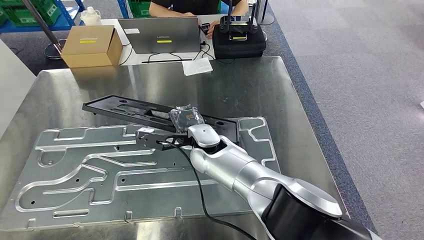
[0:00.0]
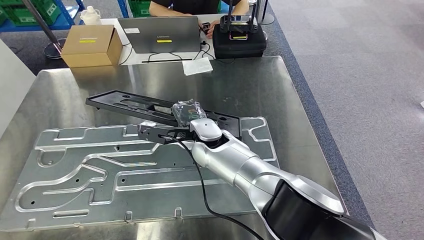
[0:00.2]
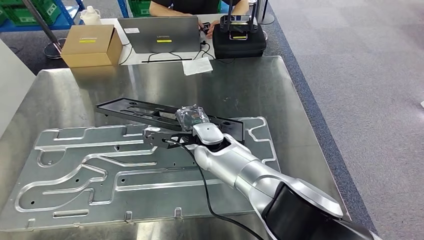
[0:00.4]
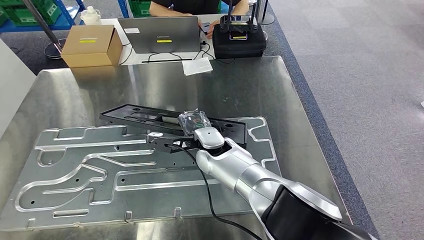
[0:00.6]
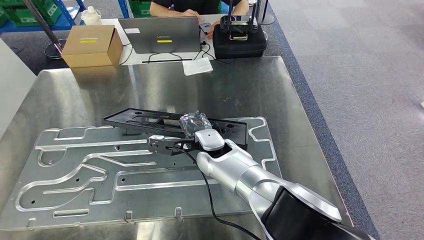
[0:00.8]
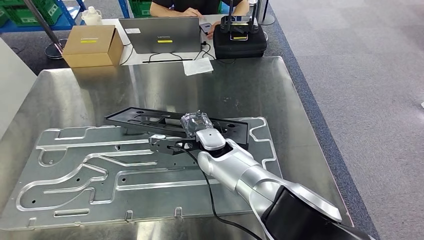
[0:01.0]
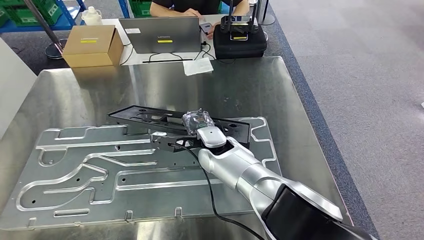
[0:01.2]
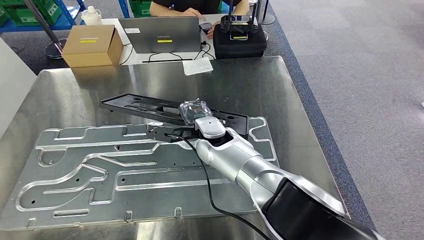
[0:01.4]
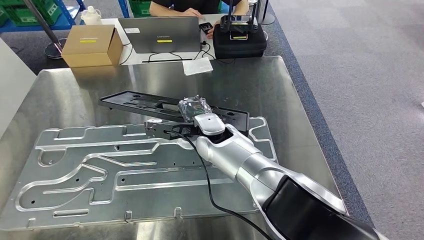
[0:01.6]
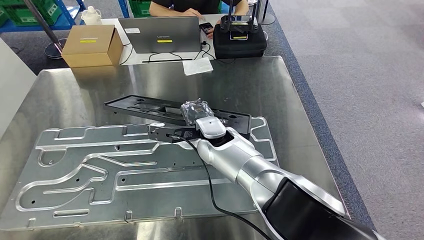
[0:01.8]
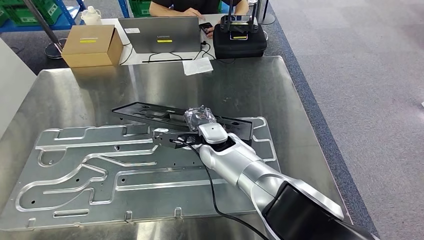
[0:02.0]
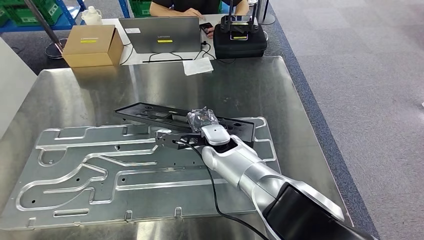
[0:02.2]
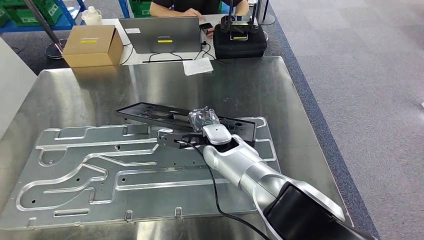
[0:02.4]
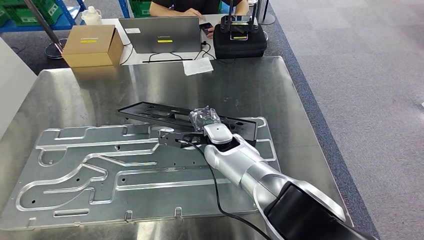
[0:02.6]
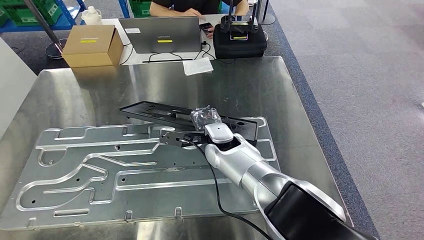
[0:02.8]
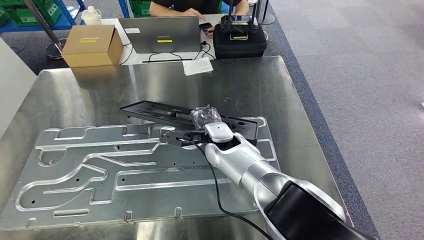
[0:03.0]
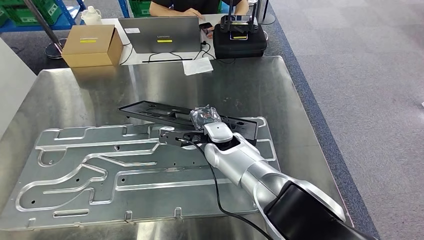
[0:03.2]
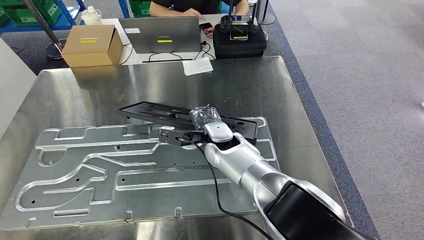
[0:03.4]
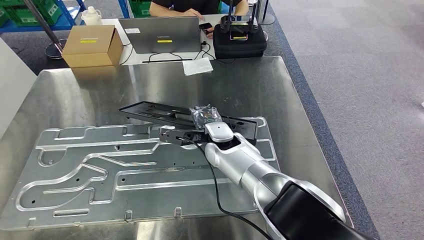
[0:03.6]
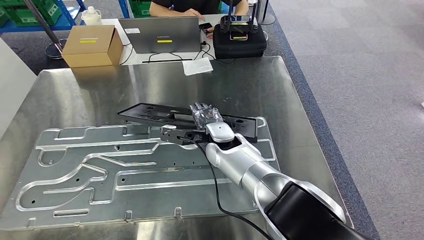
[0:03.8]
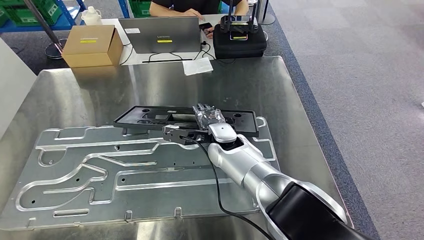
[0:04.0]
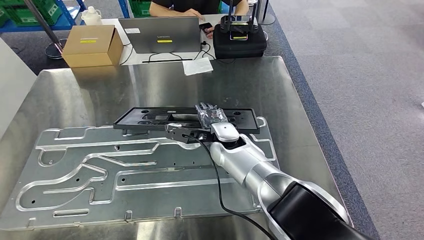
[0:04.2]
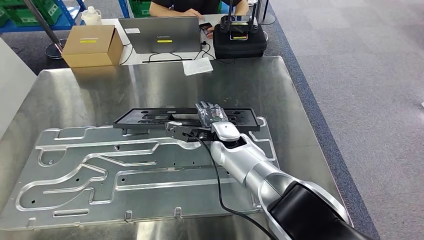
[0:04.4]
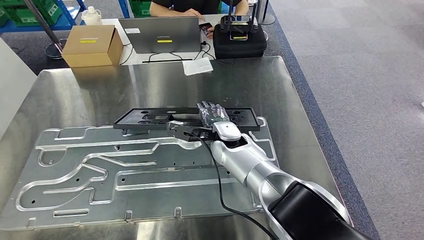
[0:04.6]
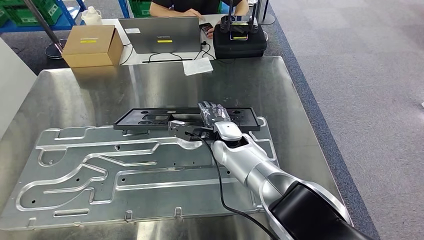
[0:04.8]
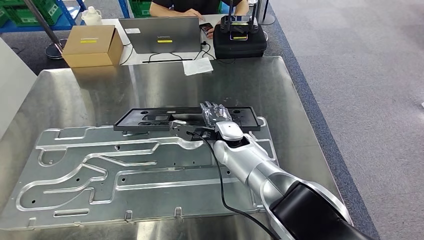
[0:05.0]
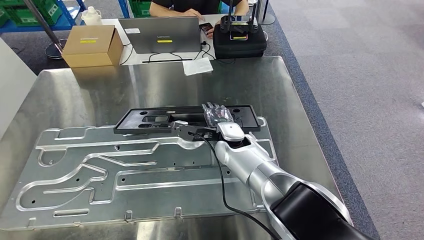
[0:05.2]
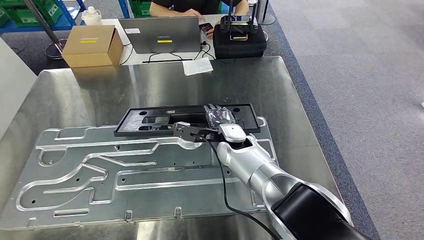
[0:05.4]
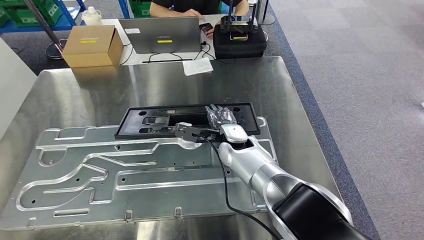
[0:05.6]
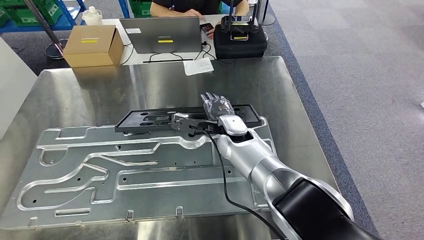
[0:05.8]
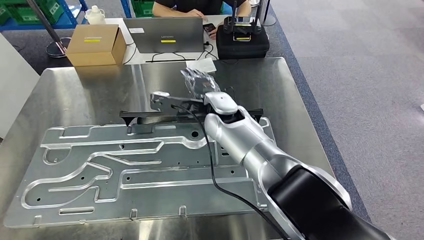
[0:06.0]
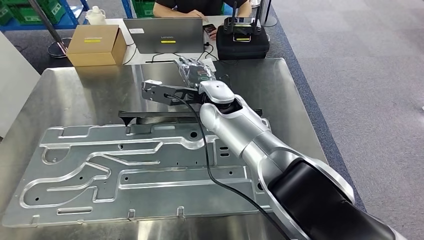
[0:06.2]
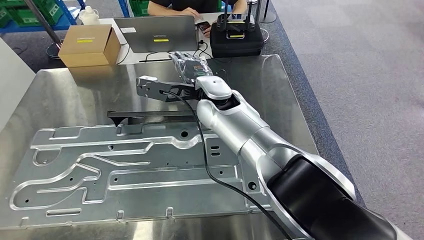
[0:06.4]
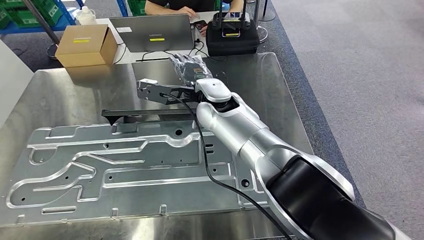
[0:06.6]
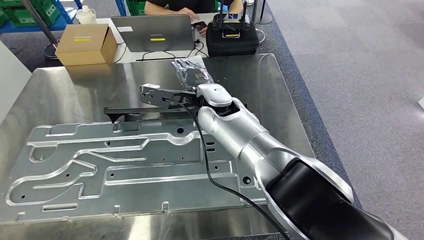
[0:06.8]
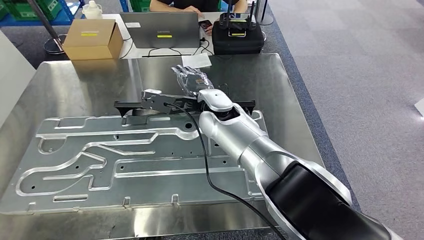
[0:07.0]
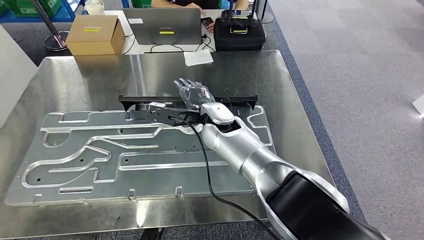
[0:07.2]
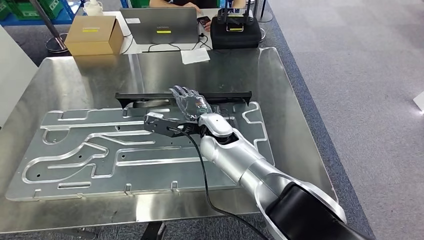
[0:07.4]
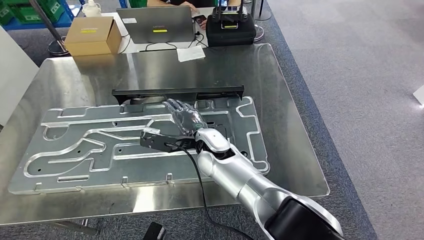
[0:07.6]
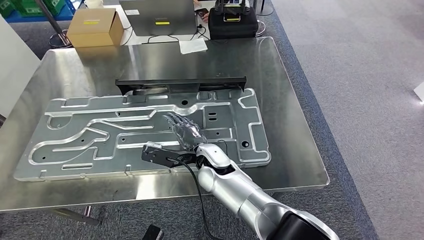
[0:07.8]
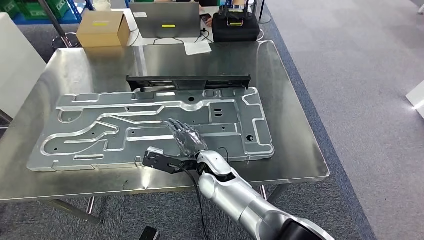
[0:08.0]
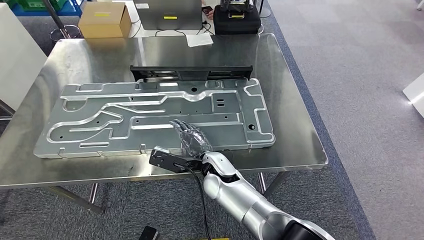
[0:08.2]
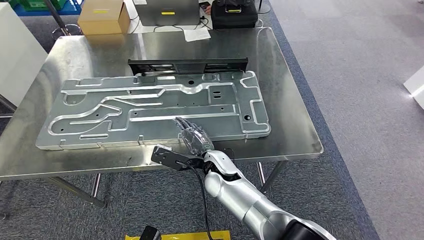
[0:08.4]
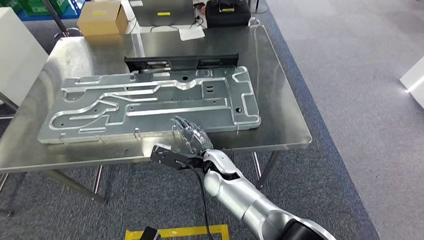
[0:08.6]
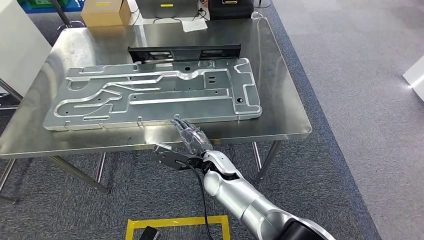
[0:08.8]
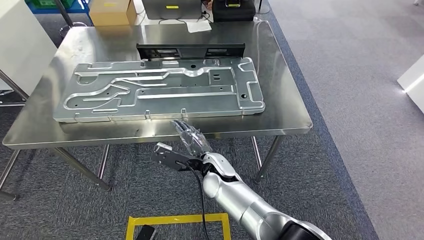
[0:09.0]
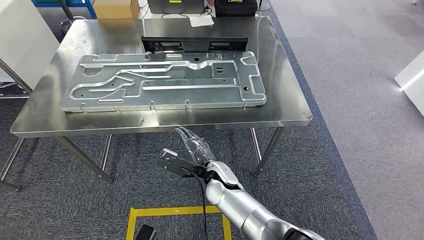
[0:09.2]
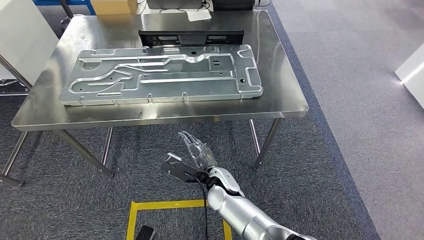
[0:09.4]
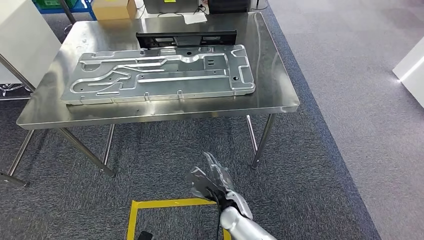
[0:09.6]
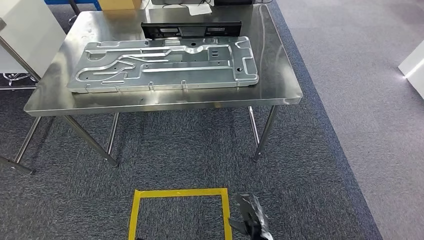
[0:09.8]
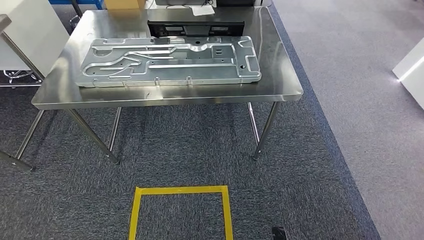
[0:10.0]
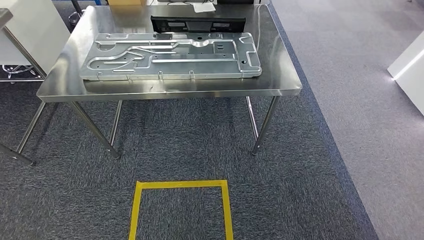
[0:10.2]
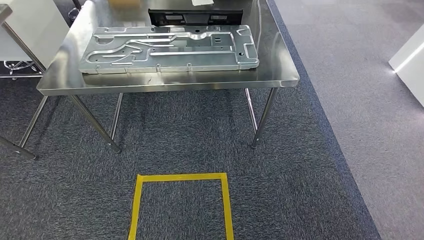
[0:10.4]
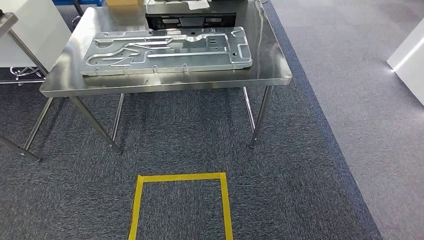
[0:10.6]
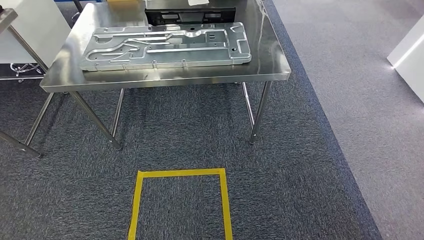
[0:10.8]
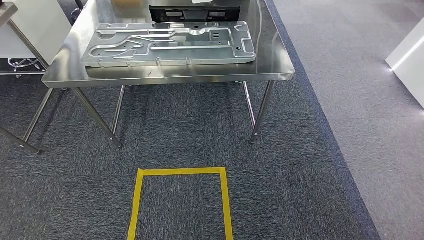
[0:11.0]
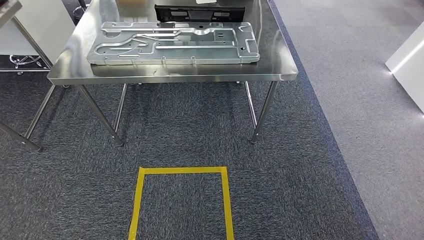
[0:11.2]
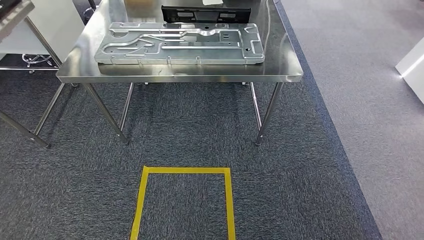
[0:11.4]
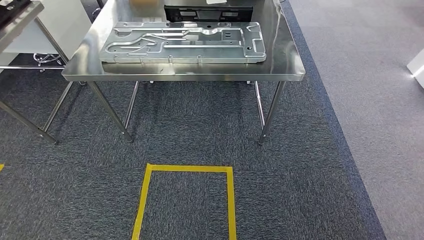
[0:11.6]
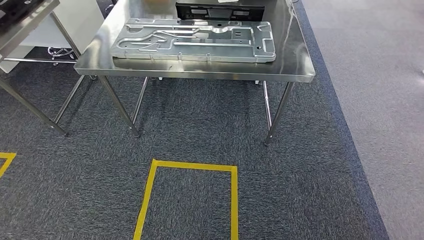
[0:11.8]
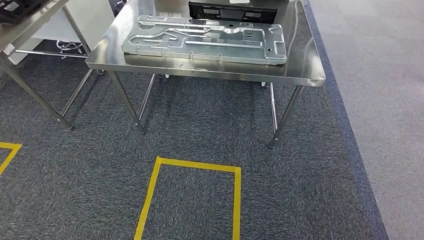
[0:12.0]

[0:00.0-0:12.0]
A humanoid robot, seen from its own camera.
Step, 0:00.0 to 0:06.8: Insert the large material into the corresponding hole on the workbench.
0:00.0 to 0:03.0: The hands make only small movements.
0:03.0 to 0:04.4: There are only small adjustments of the hands.

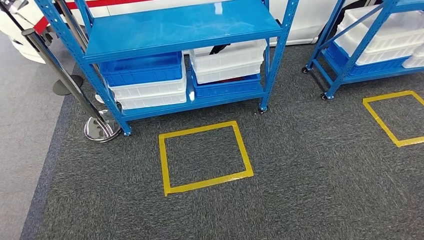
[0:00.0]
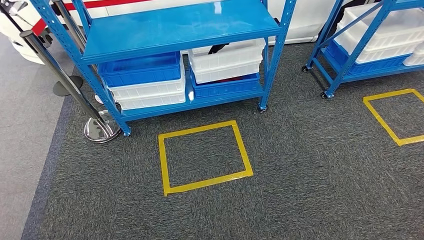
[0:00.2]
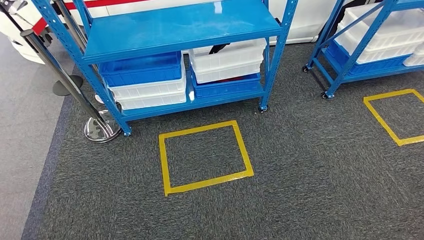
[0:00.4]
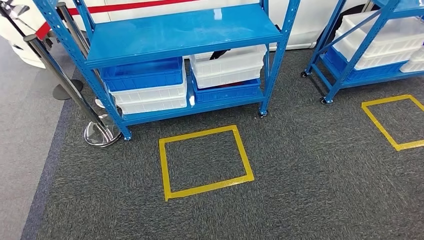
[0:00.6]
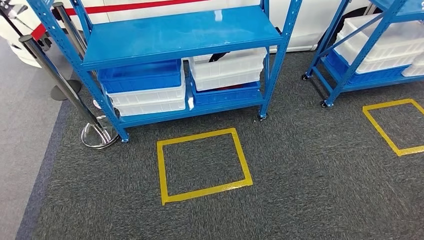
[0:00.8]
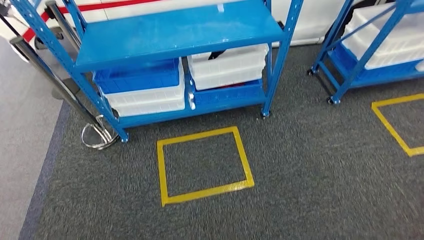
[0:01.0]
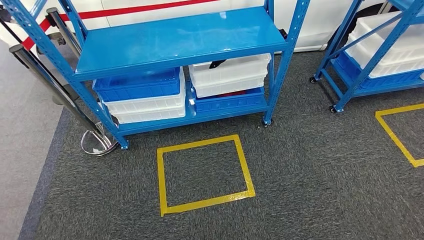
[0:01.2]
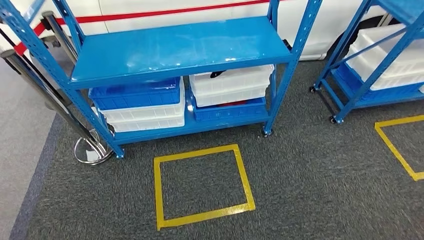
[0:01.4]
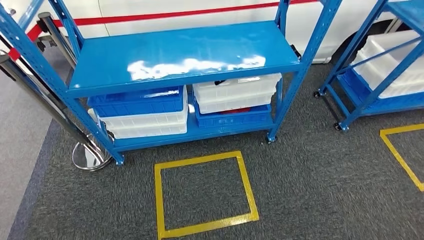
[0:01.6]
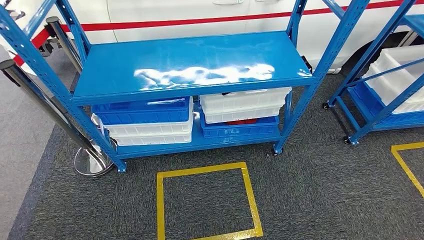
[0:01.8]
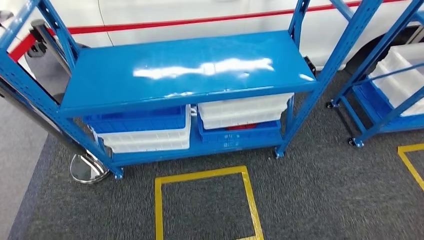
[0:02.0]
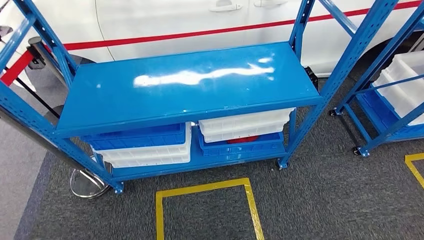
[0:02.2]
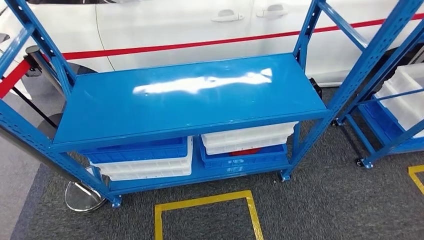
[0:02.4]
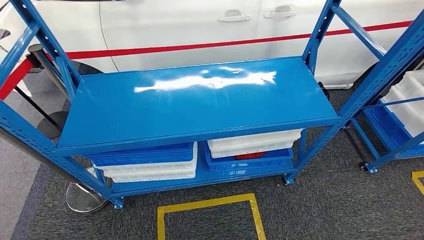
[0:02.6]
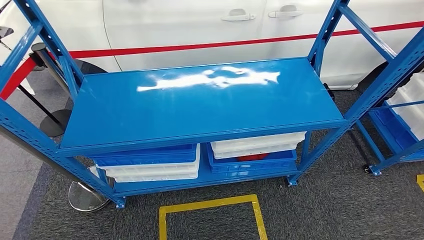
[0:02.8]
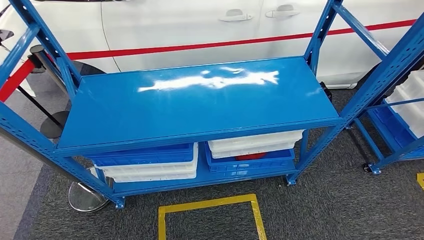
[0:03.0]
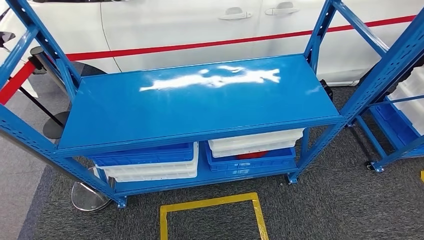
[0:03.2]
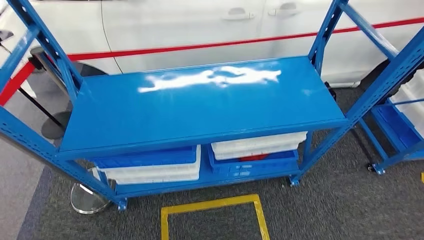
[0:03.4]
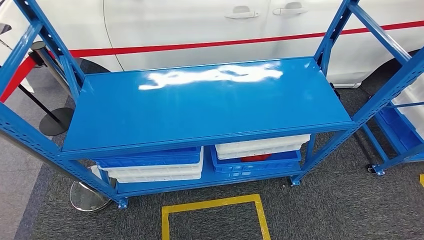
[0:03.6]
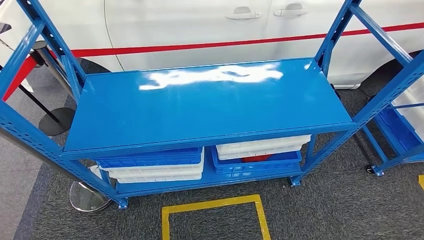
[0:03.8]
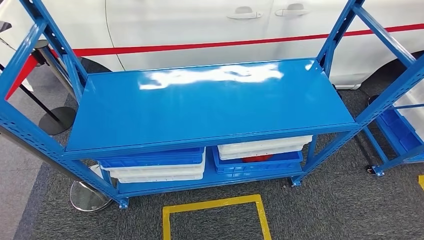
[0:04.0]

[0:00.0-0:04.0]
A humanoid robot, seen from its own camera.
Step, 0:00.0 to 0:04.0: Move to the initial position of the shelf.

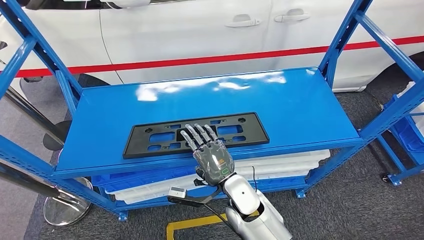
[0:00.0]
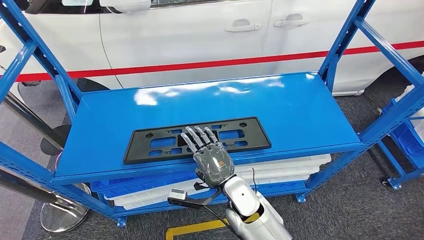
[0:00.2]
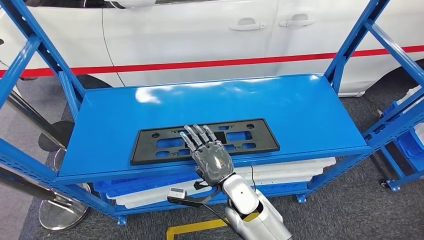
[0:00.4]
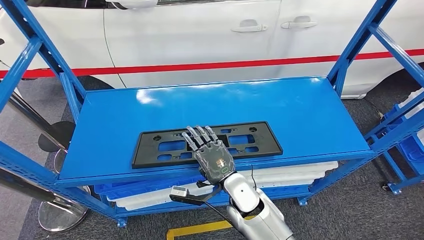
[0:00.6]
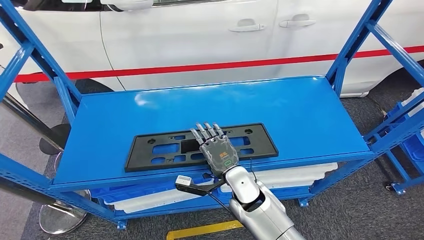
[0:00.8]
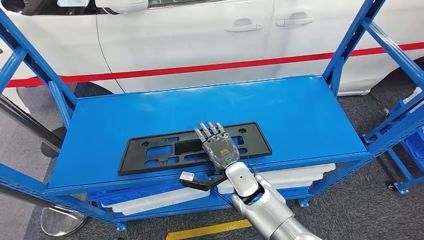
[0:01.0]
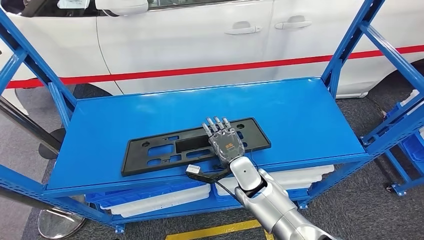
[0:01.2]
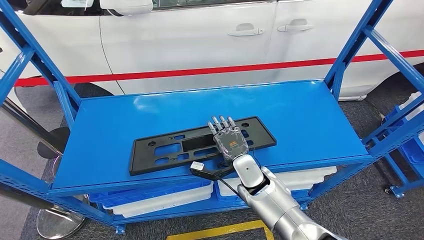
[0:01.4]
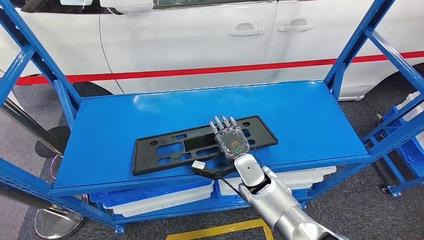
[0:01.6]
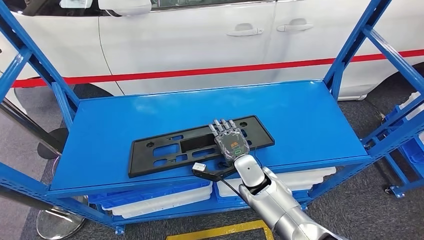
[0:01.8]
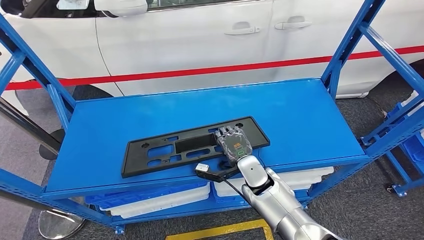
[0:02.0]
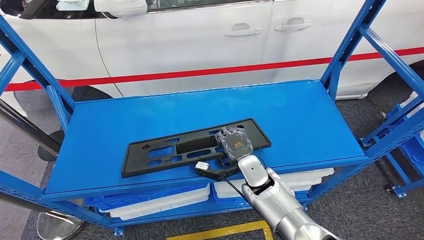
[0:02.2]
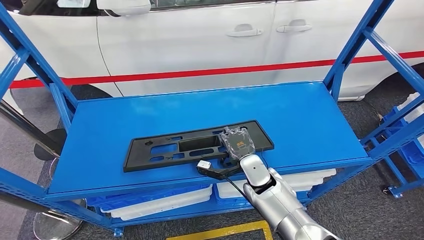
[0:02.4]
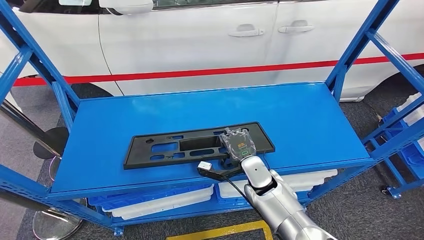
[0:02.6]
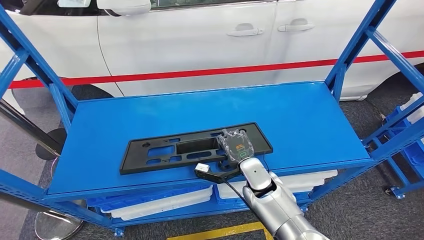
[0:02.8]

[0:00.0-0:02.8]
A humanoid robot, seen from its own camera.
0:01.4 to 0:02.8: The hands move only a little.
